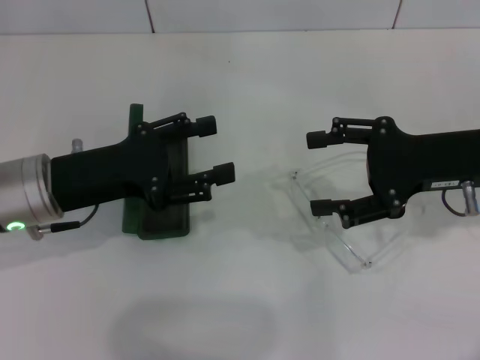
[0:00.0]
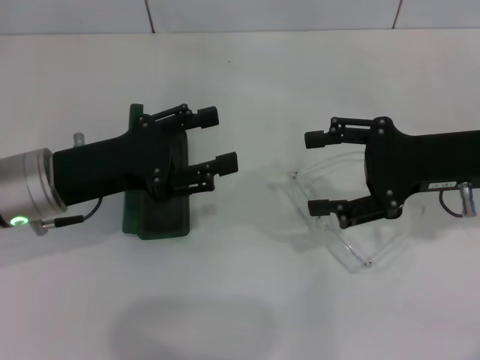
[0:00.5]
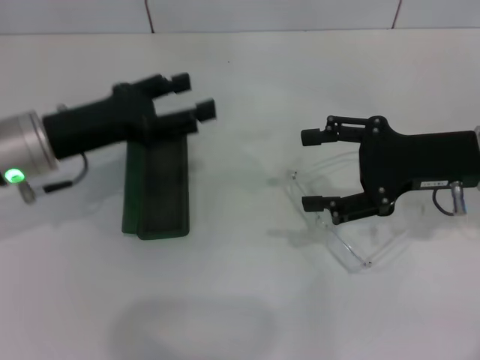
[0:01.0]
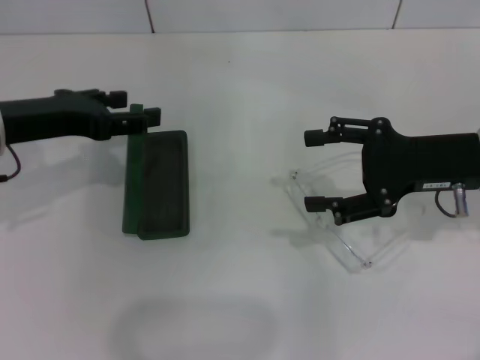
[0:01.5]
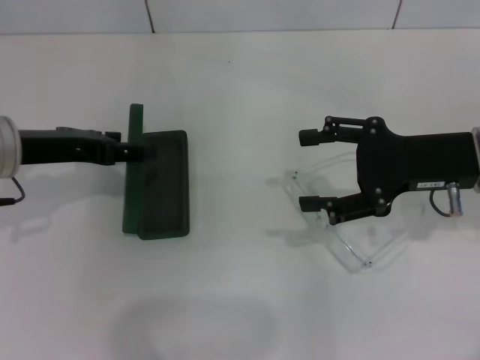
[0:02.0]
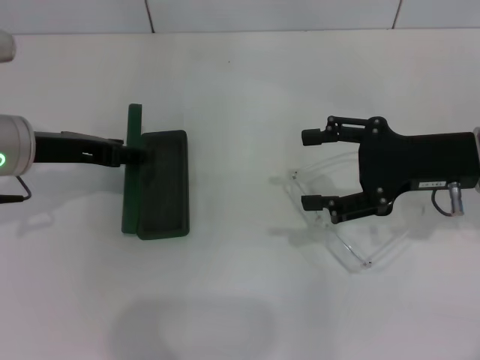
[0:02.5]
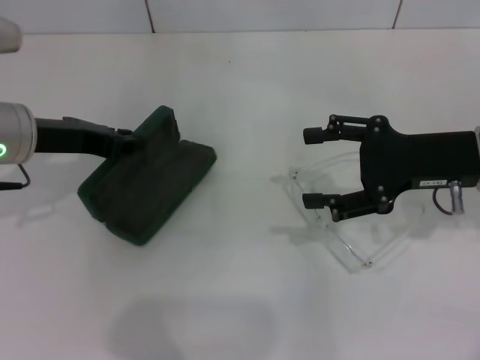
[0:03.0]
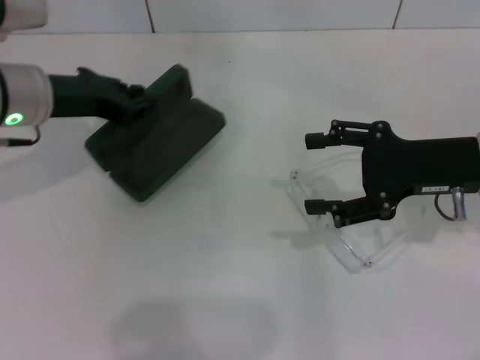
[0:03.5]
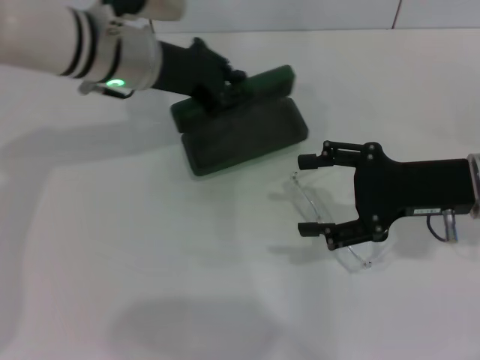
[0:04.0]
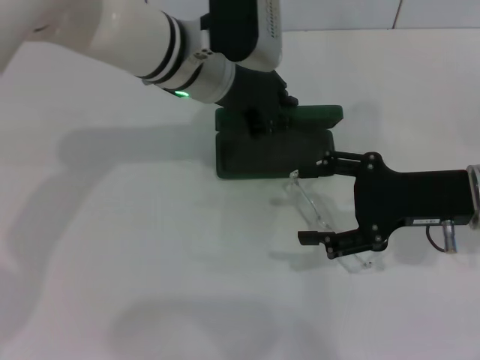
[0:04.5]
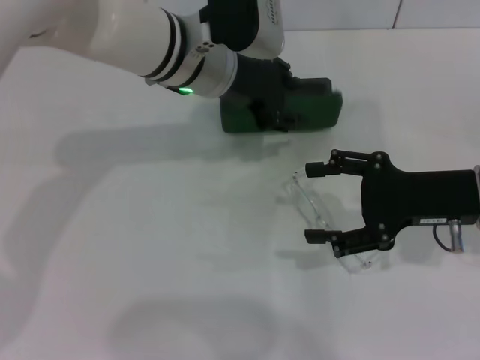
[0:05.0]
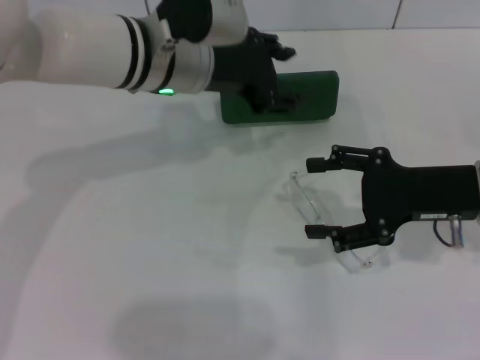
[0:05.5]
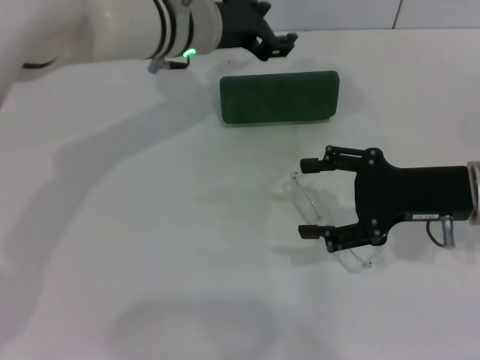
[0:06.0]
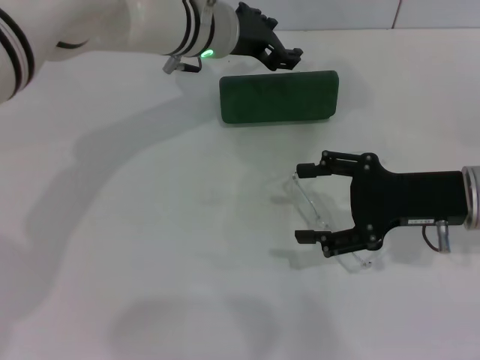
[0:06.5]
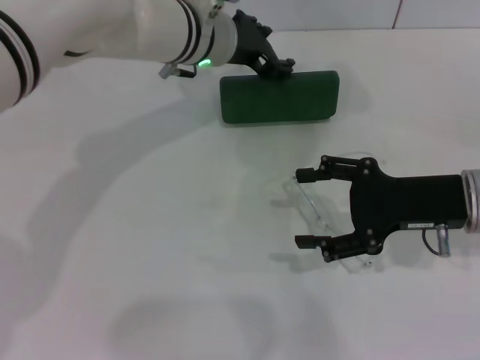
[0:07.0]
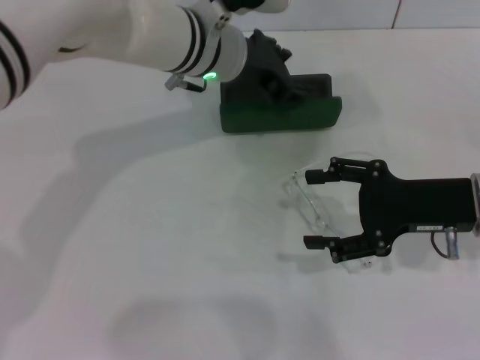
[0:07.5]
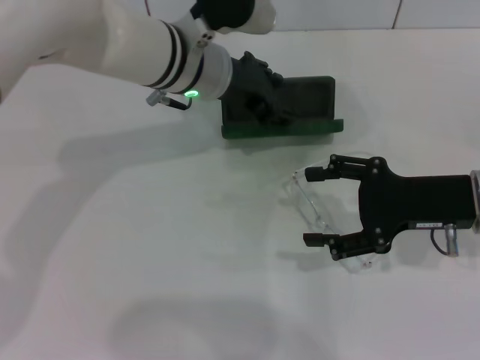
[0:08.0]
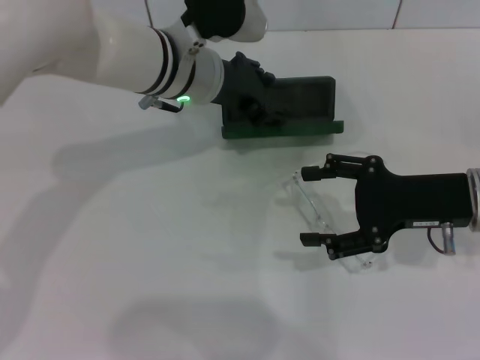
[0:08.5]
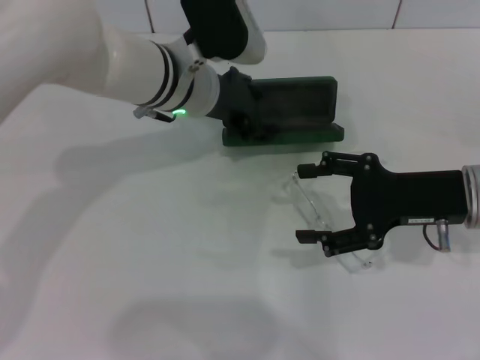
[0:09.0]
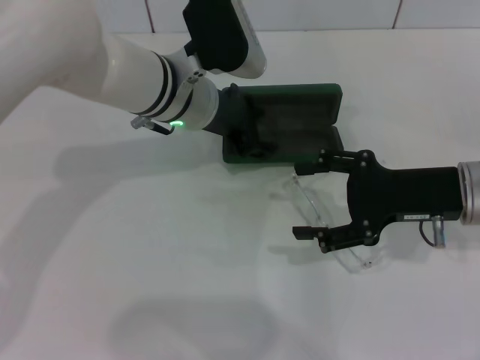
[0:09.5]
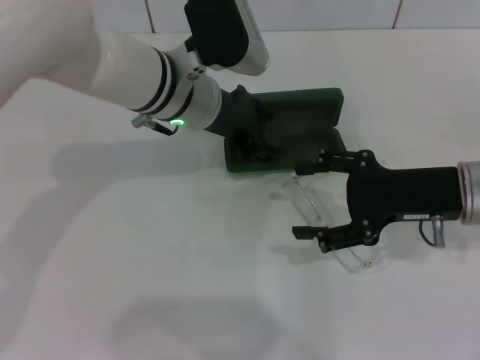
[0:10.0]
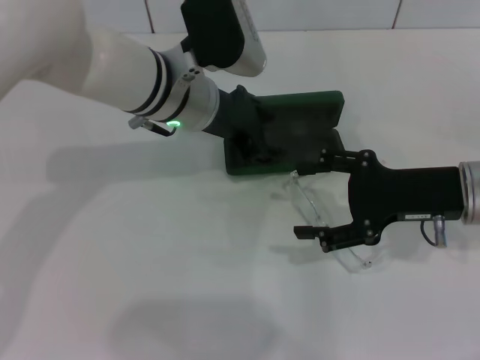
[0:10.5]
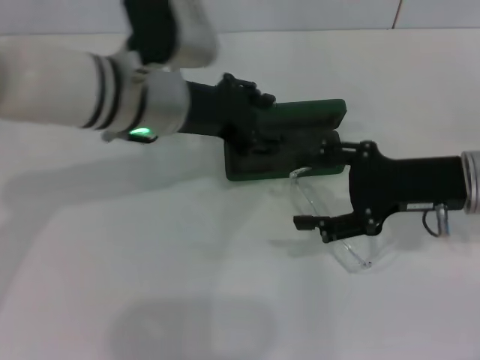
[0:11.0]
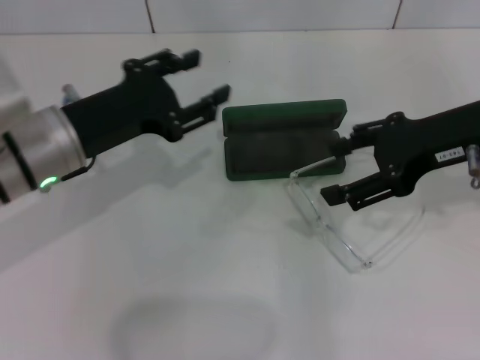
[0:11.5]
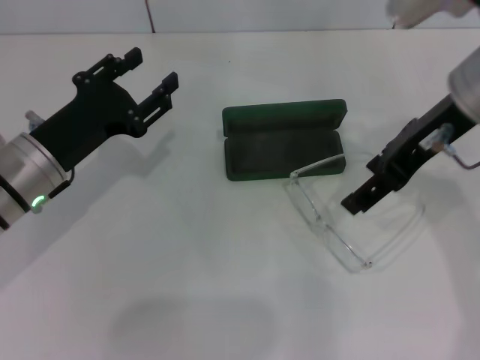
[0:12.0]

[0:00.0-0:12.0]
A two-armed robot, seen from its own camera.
Step, 0:00.0 to 0:03.0: Grab the glasses case with your left hand.
Step, 0:03.5 to 0:11.0: Place the glasses case in the center of the table with your left hand.
0:00.0 to 0:02.0: The left gripper changes place by roughly 5 cm.
0:02.0 to 0:04.0: The left gripper heads to the right and forward, covering about 15 cm, and closes up.
0:04.0 to 0:06.0: The left gripper goes approximately 5 cm to the right, and opens up.
0:06.0 to 0:08.0: There are only small adjustments of the grippers.
0:08.0 to 0:10.0: The grippers make only small movements.
0:10.0 to 0:12.0: The right gripper travels upward by approximately 15 cm. Meanwhile the left gripper moves to the left and backward, roughly 20 cm.

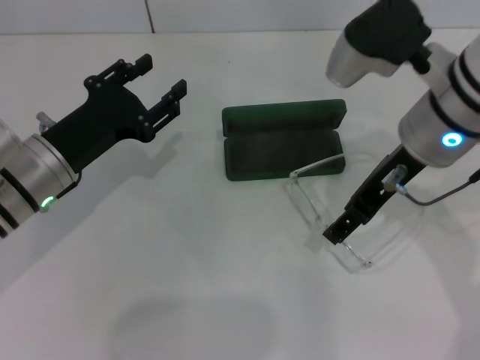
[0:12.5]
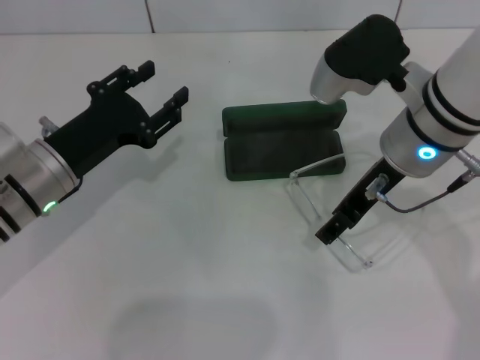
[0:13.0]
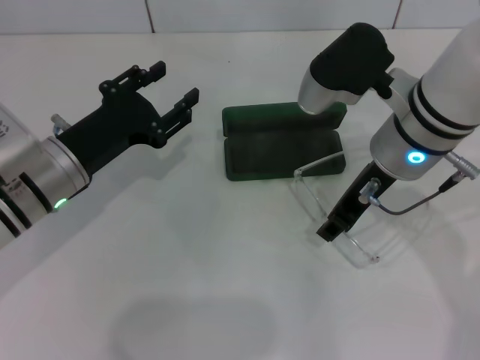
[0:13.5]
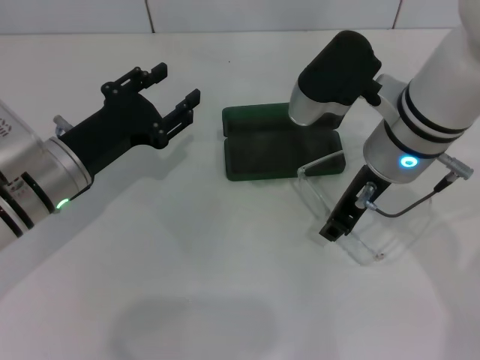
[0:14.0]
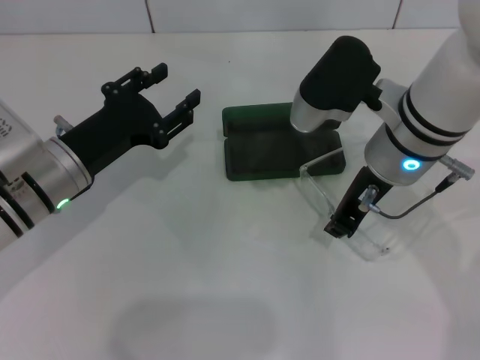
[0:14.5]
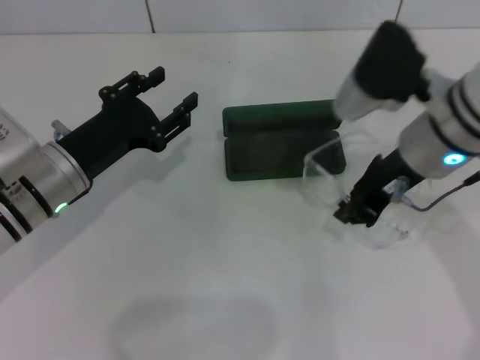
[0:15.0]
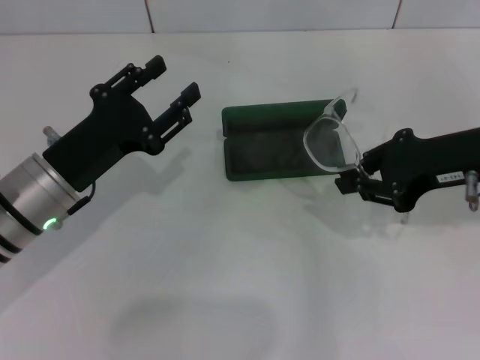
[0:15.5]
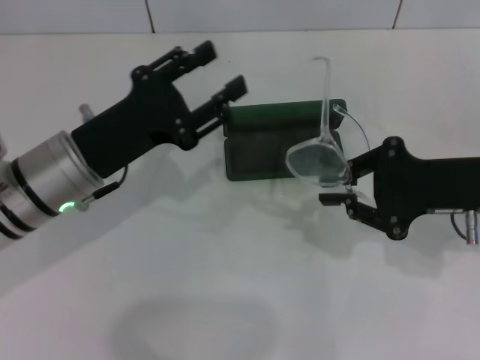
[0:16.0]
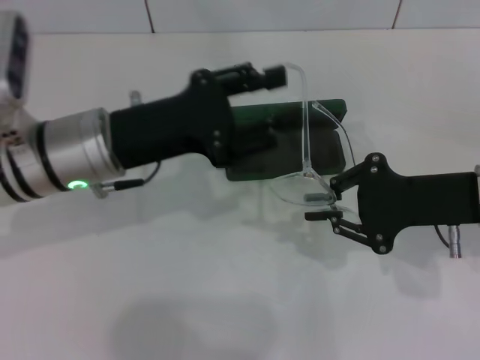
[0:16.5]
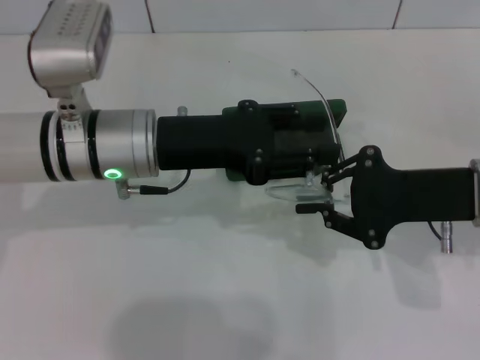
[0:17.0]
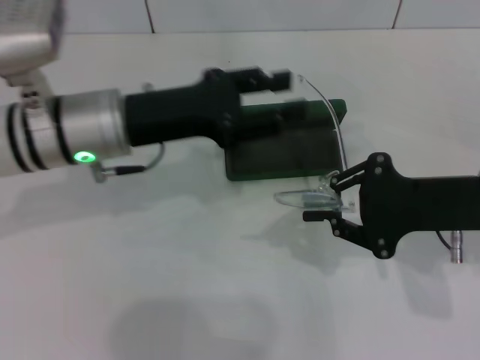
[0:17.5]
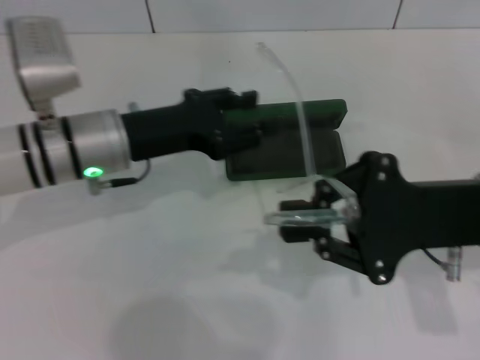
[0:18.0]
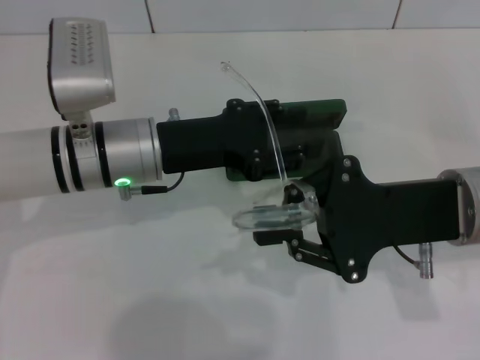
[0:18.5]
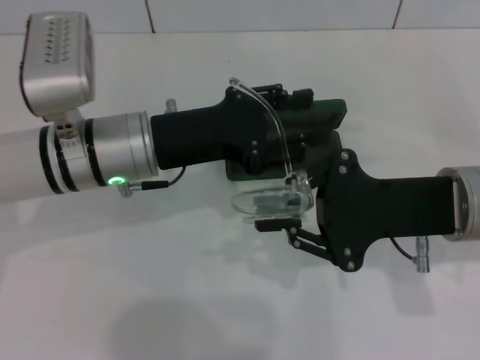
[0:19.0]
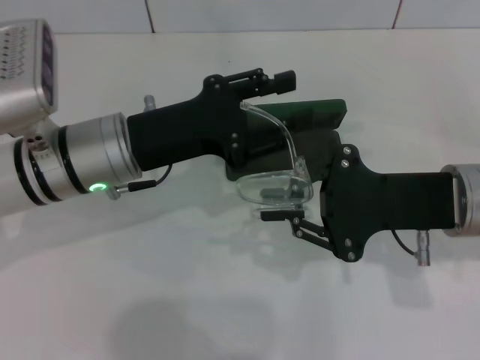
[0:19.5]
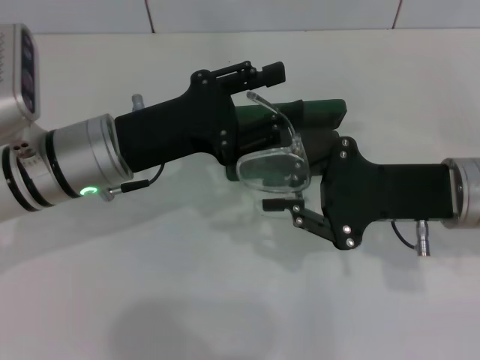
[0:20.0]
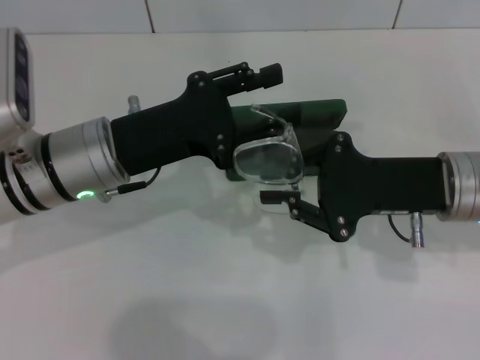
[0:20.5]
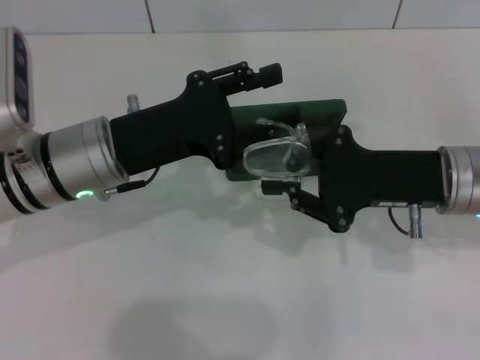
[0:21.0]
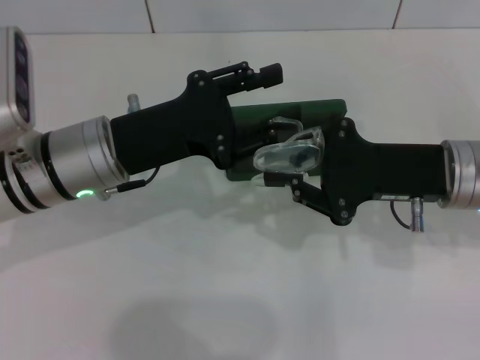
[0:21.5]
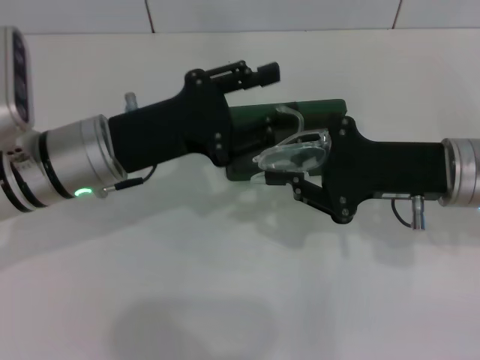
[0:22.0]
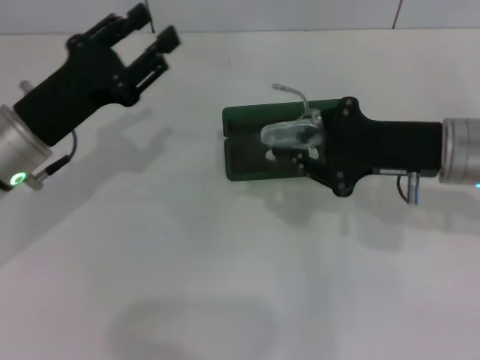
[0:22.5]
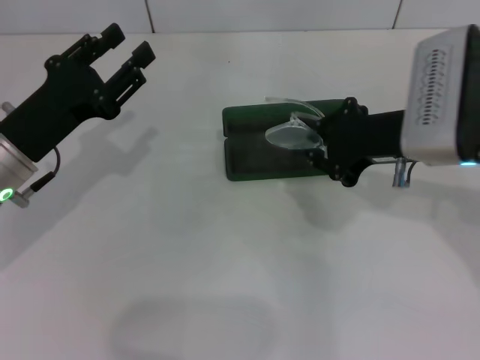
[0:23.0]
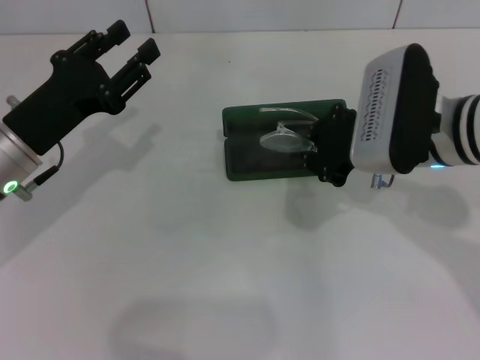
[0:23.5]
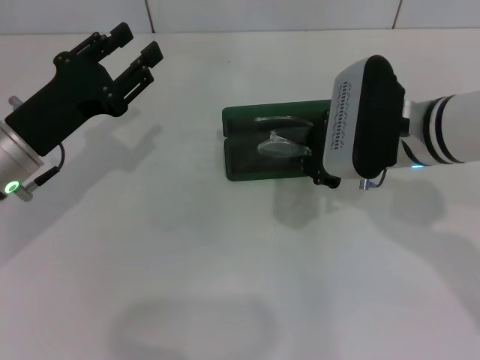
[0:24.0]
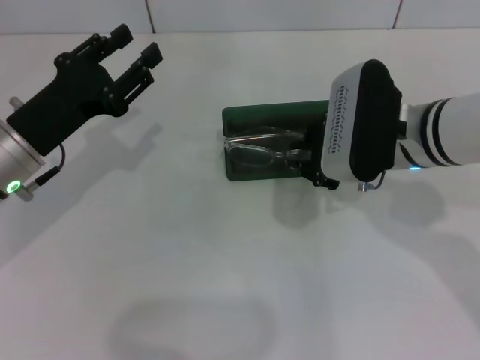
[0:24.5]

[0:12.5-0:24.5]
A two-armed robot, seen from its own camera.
Step, 0:12.5 to 0:14.5: Grab the eyeglass frame with your right hand.
Step, 0:15.0 to 0:21.0: Fold the frame with your left hand.
0:12.5 to 0:14.5: The right gripper closes its fingers.
0:14.5 to 0:16.5: The left gripper shifts approximately 5 cm upward. The right gripper goes approximately 15 cm to the right and backward.
0:20.5 to 0:22.5: The left gripper moves to the left, about 5 cm.
0:22.5 to 0:24.5: The right gripper shifts some 5 cm to the left.

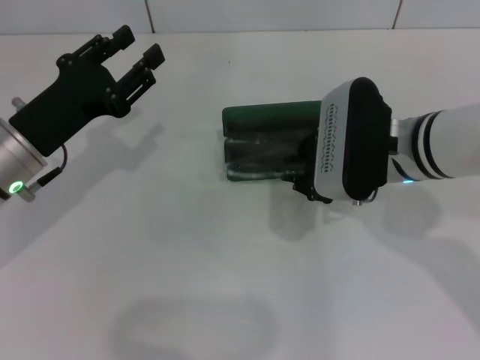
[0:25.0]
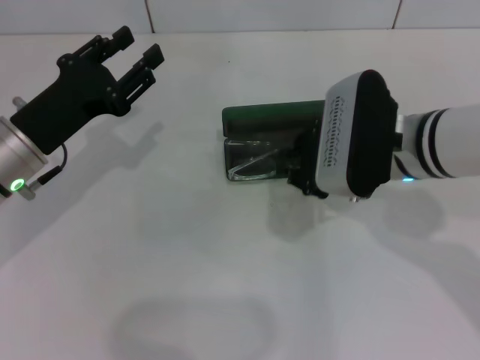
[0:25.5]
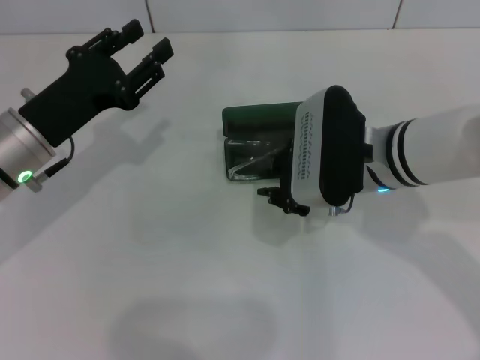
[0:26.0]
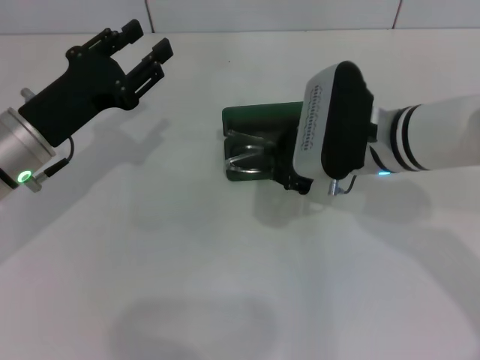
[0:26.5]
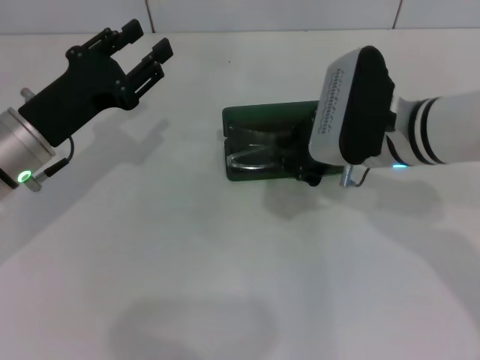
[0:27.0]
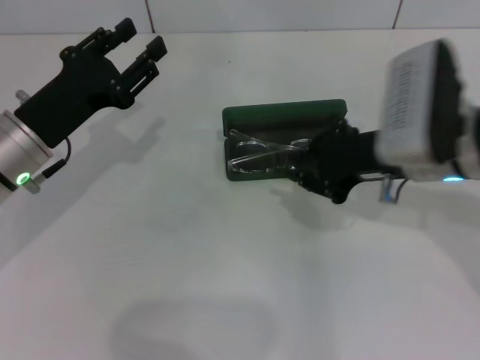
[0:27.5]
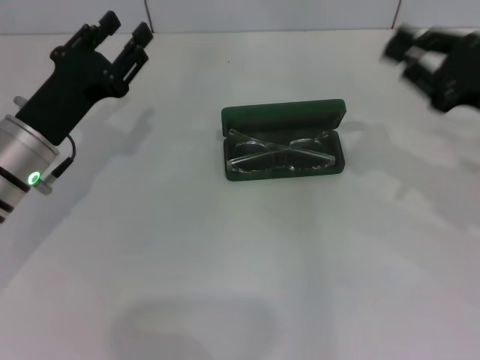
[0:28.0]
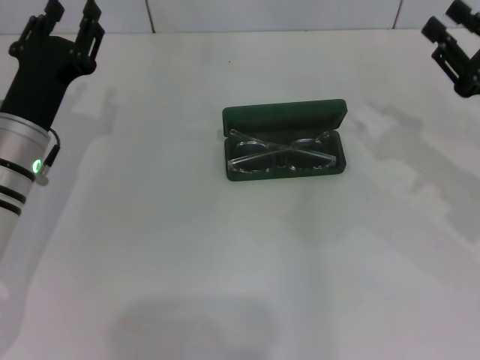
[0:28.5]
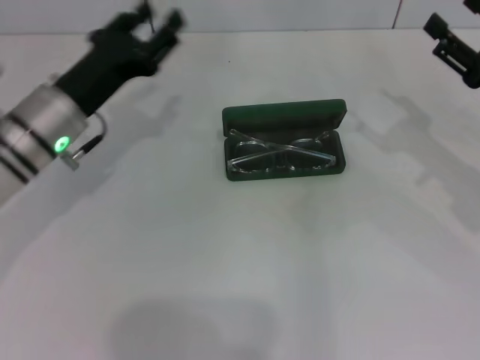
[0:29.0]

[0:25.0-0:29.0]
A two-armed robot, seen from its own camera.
Step, 0:25.0 to 0:27.5: Put the glasses into the case with your right hand.
0:25.0 to 0:27.0: The grippers stay close to where they were, moving slightly.
0:27.0 to 0:29.0: The right gripper goes some 15 cm to the right, and opens up.
